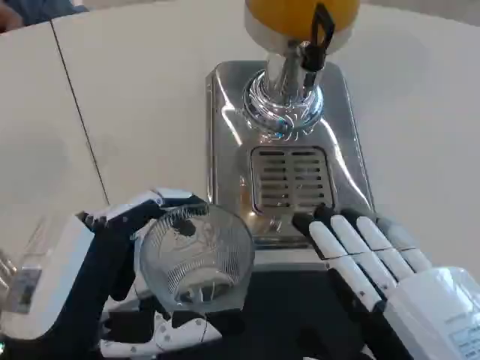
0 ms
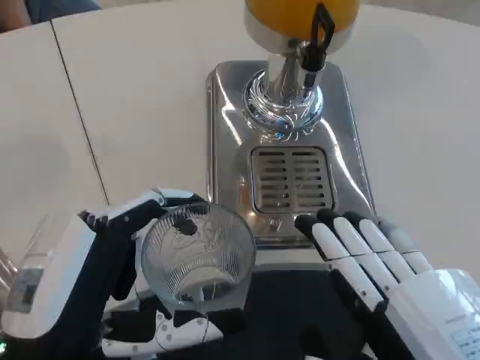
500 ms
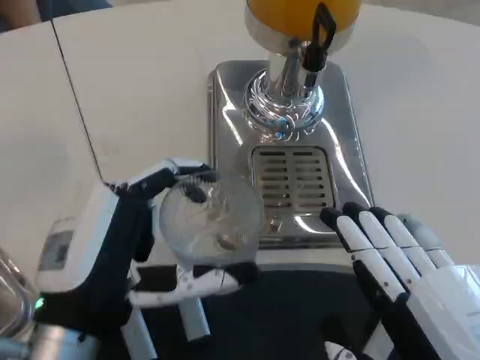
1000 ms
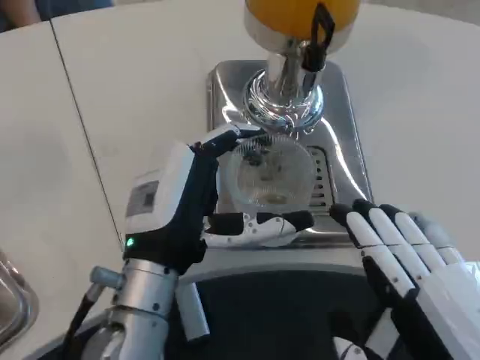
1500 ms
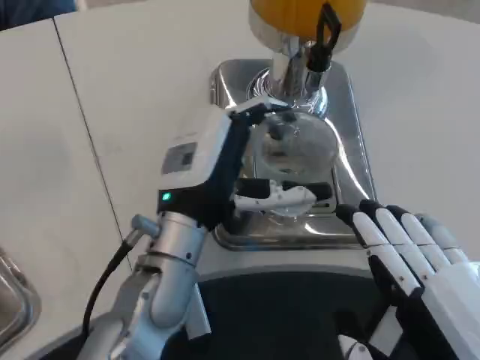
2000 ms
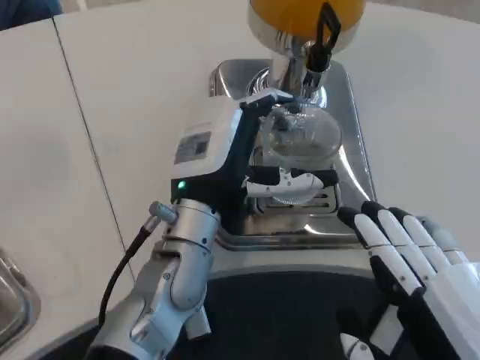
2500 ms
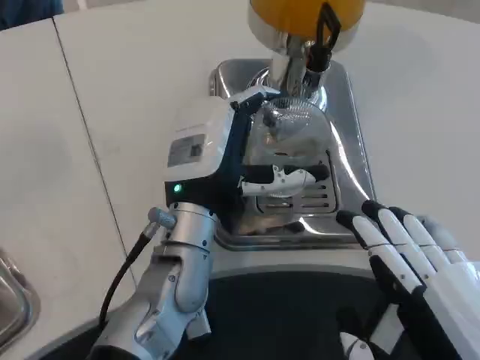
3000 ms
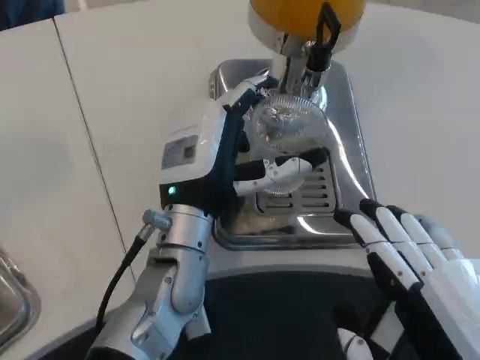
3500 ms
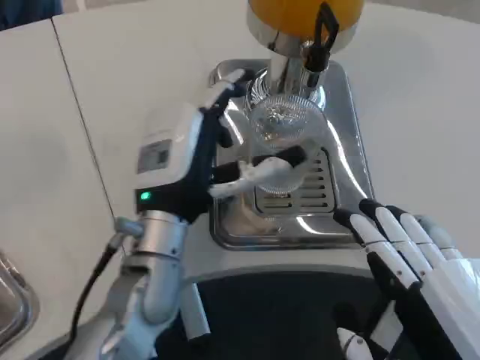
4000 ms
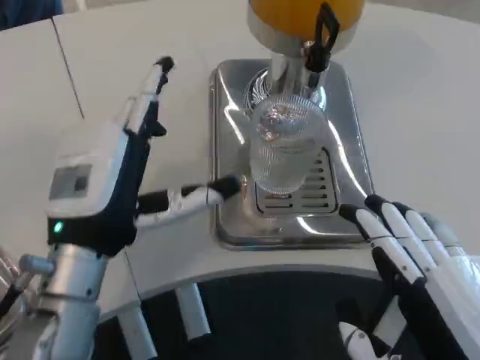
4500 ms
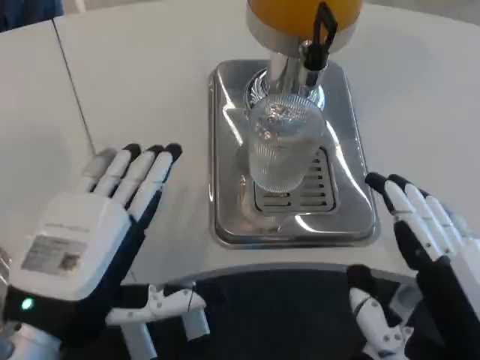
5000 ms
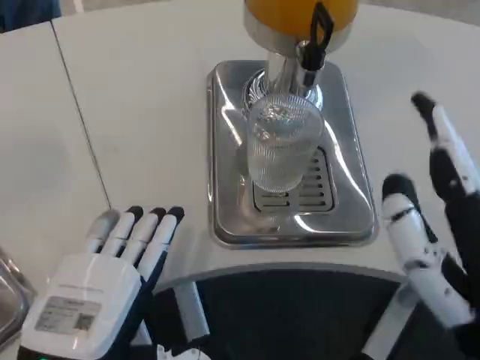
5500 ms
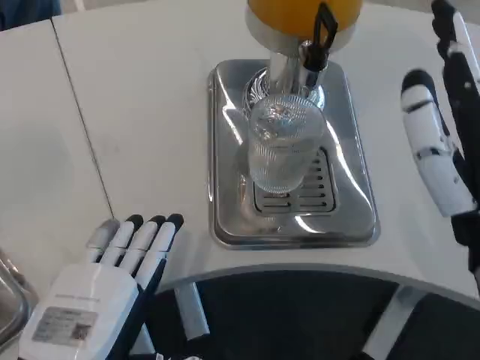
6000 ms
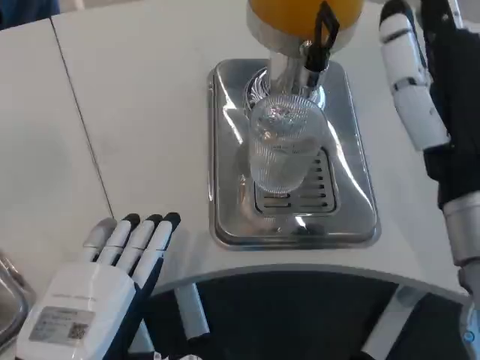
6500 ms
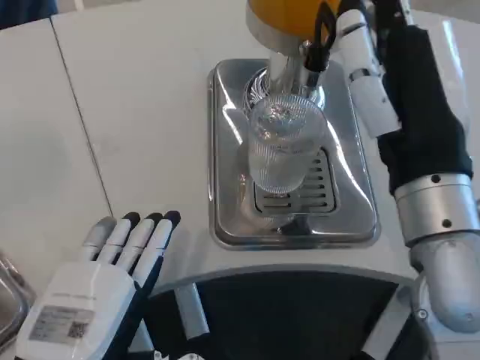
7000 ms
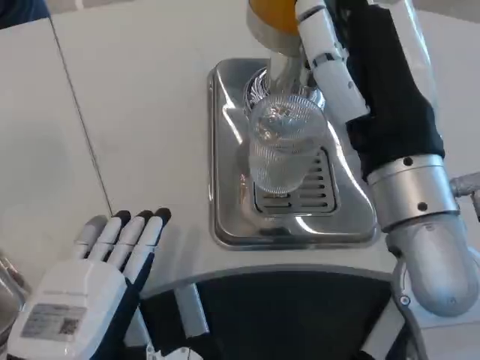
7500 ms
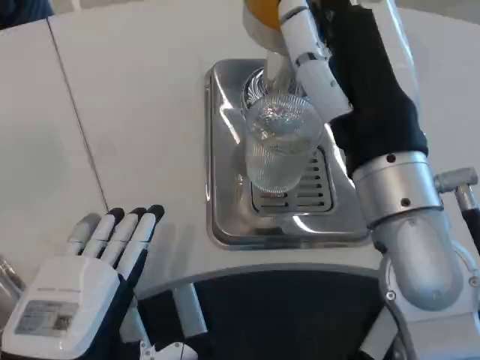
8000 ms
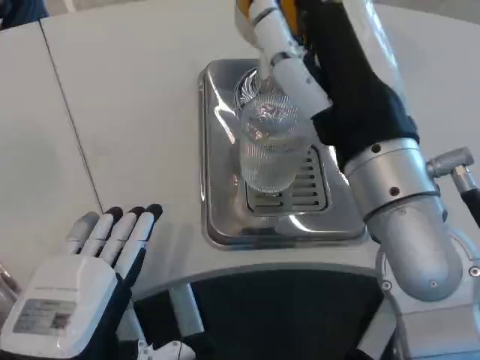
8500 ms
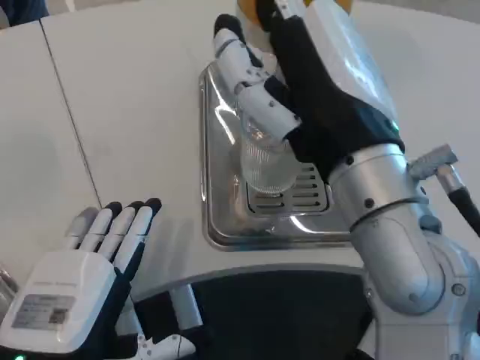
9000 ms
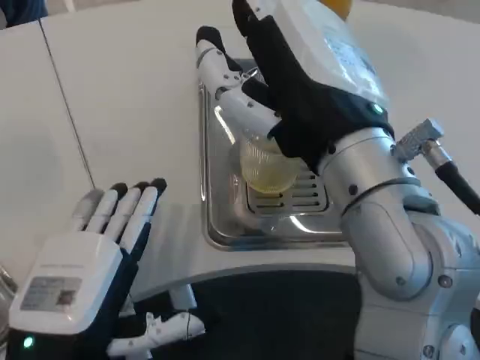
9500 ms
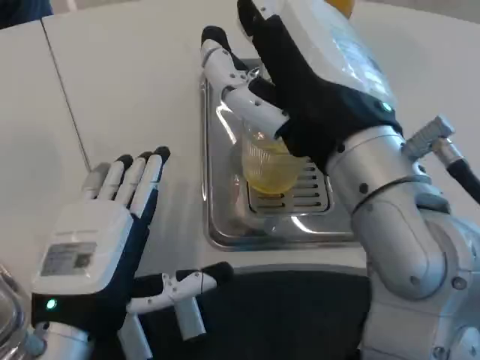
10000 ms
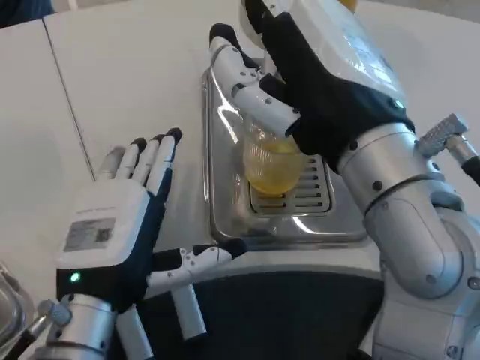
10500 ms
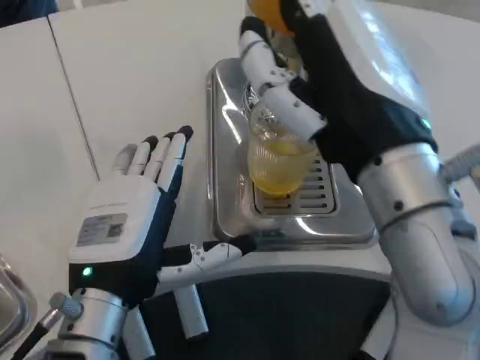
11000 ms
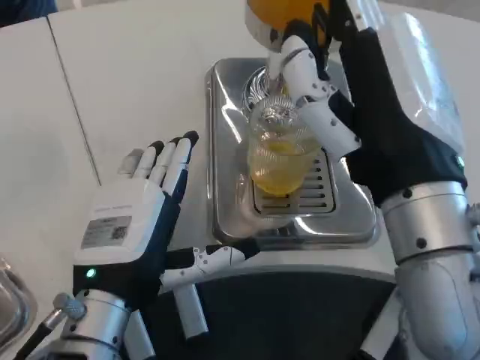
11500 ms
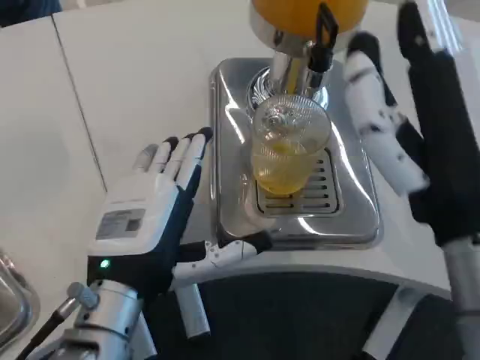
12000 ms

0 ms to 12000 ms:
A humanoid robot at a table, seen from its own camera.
Task of the whole recording: Grasp the cup under the faucet to collect the drink, then remove the cup.
0 ms to 2000 ms: The left hand moves forward and to the right, about 20 cm.
2000 ms to 4000 ms: The hands move only a little.
4000 ms to 6000 ms: The left hand moves backward and to the left, roughly 20 cm; the right hand moves forward, roughly 10 cm.
6000 ms to 8000 ms: The right hand shifts roughly 10 cm to the left and forward.
8000 ms to 10000 ms: The left hand changes place by about 5 cm.
10000 ms to 12000 ms: The right hand goes approximately 5 cm downward.

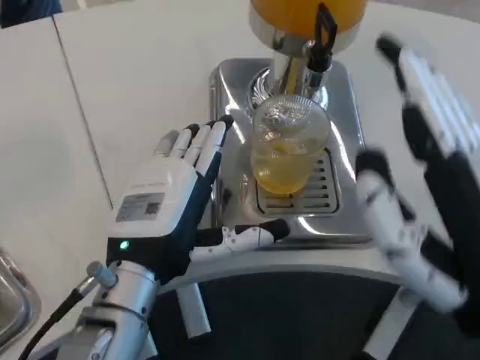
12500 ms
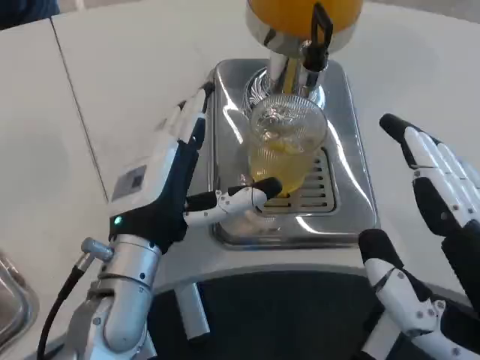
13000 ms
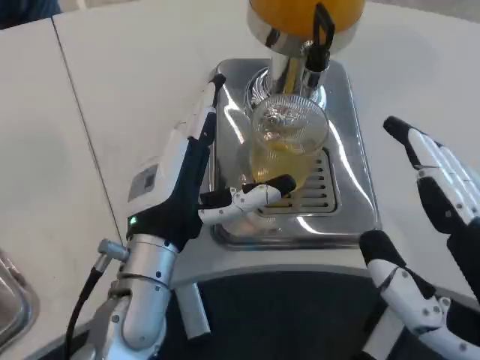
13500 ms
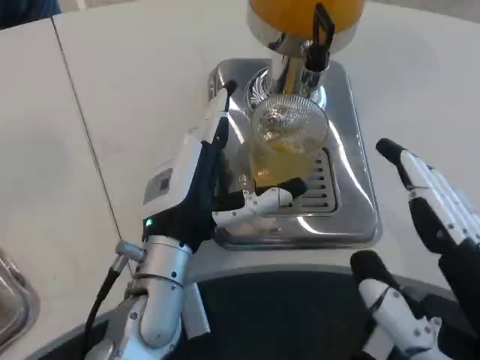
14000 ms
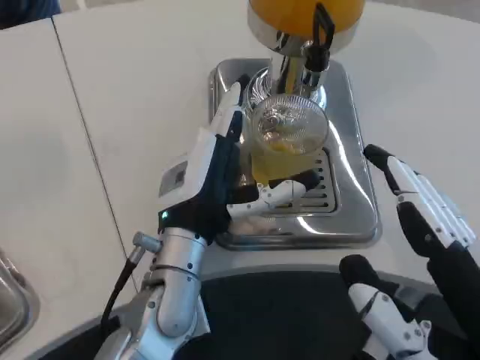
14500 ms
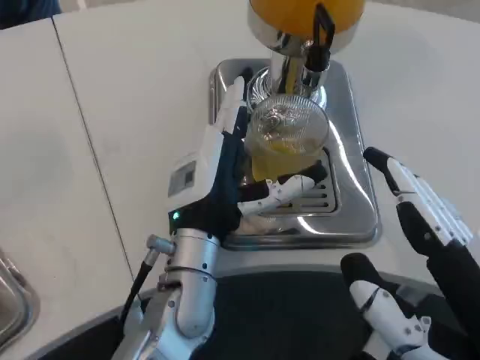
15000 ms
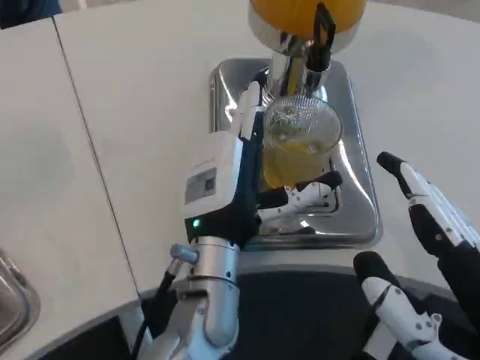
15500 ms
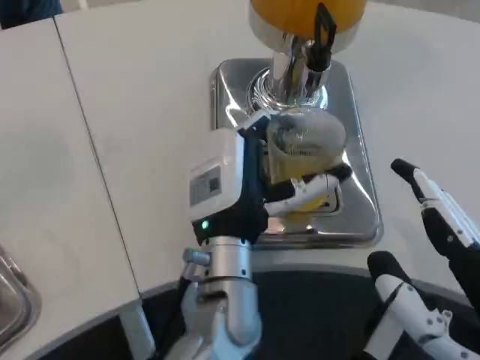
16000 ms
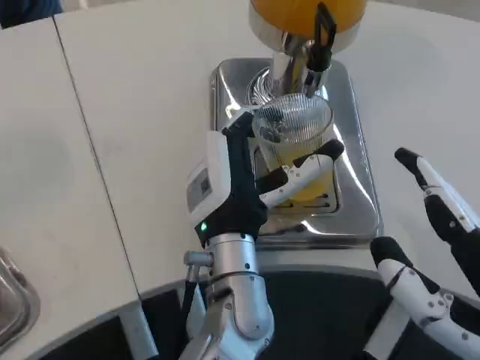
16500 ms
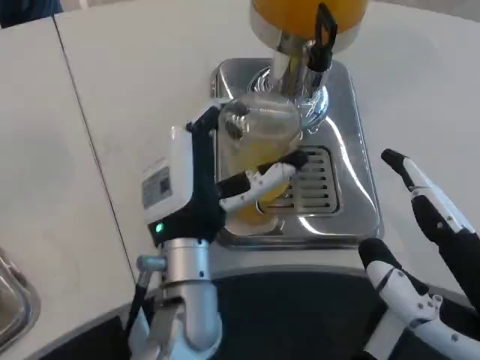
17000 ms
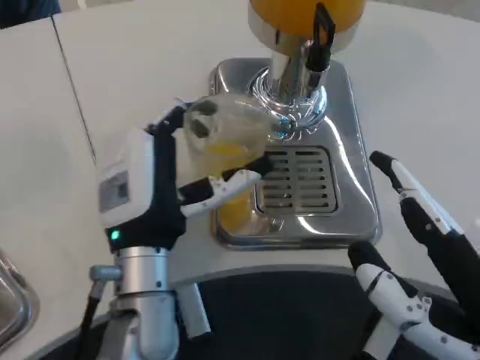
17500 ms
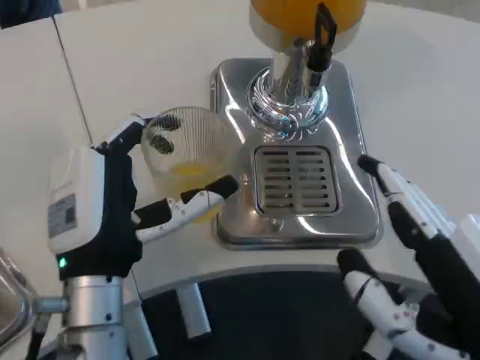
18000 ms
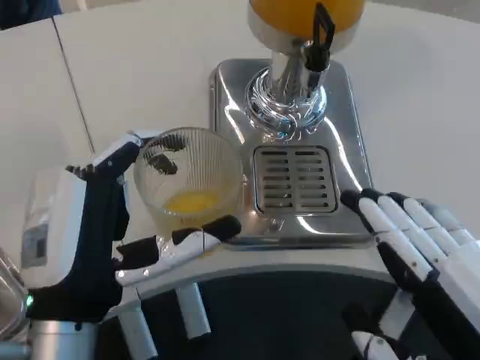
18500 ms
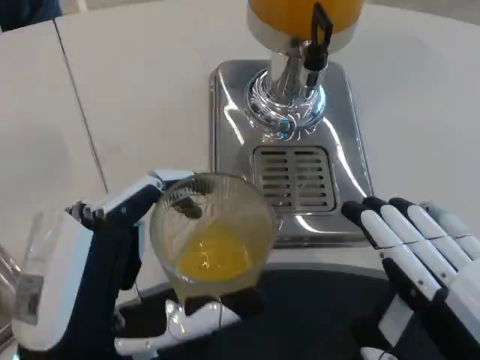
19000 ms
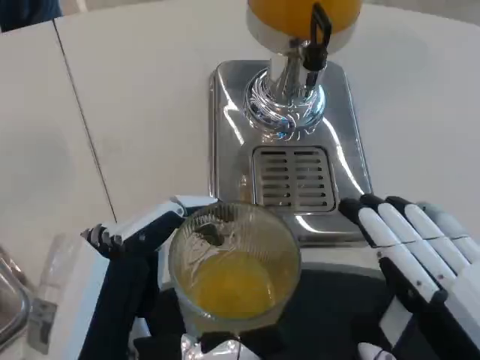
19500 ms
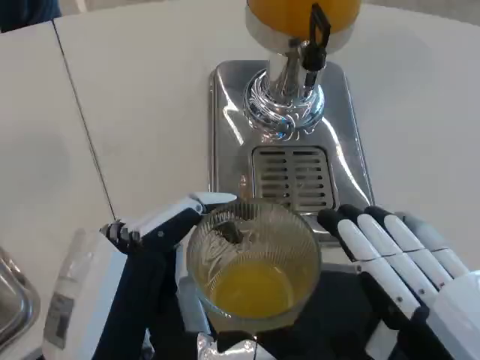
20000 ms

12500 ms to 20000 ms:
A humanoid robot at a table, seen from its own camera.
Task of the whole recording: Grasp the cup under the faucet to collect the drink, then remove the cup.
12500 ms to 14500 ms: The left hand changes place by approximately 5 cm.
14500 ms to 16500 ms: The left hand travels to the right by roughly 5 cm.
16500 ms to 18000 ms: The left hand travels to the left and backward by about 15 cm.
18000 ms to 20000 ms: The left hand heads backward, covering approximately 10 cm.

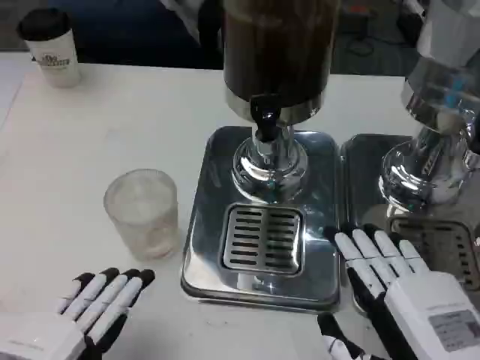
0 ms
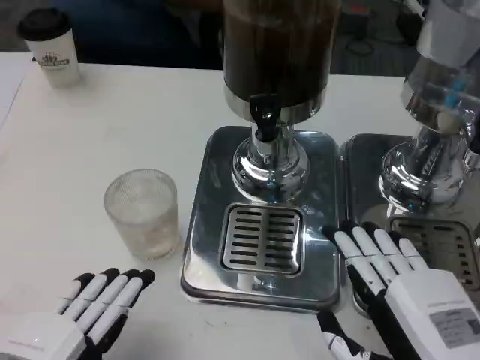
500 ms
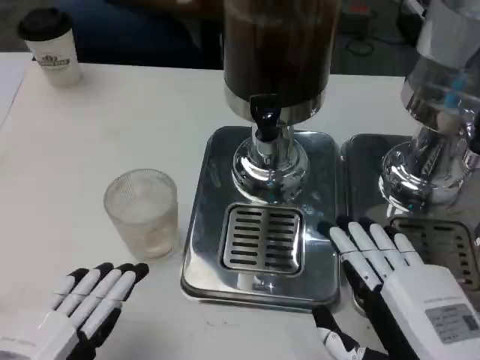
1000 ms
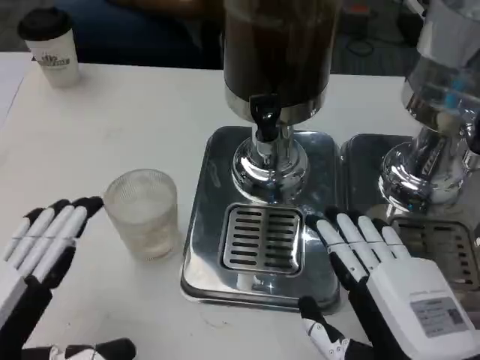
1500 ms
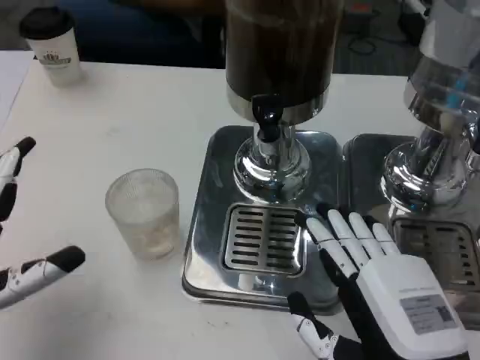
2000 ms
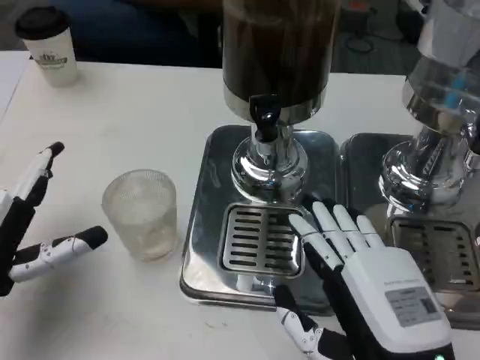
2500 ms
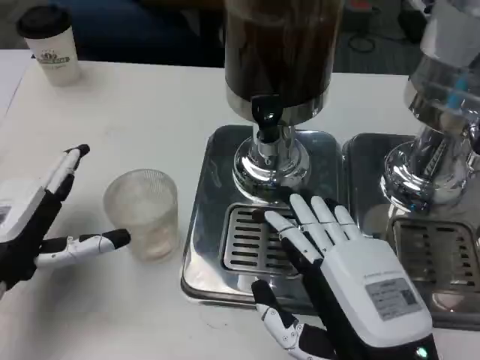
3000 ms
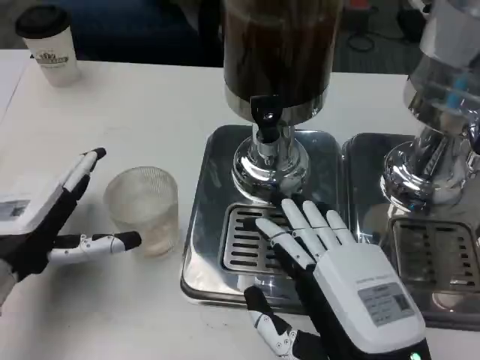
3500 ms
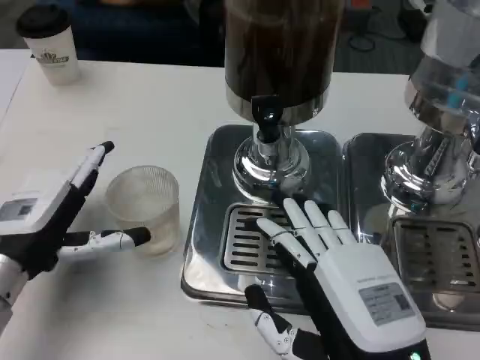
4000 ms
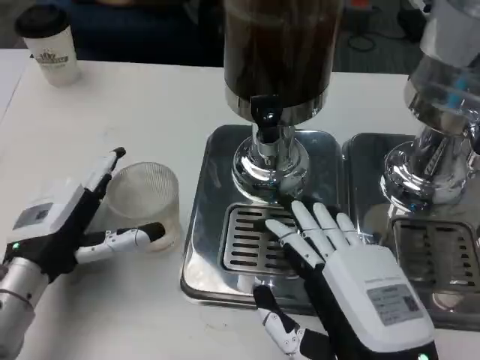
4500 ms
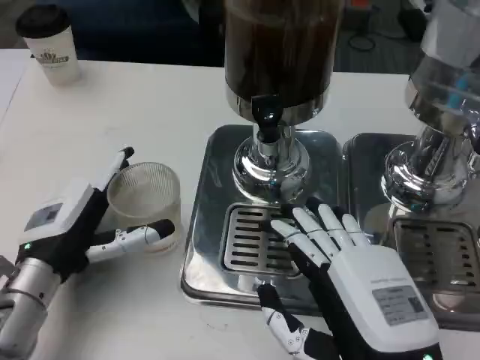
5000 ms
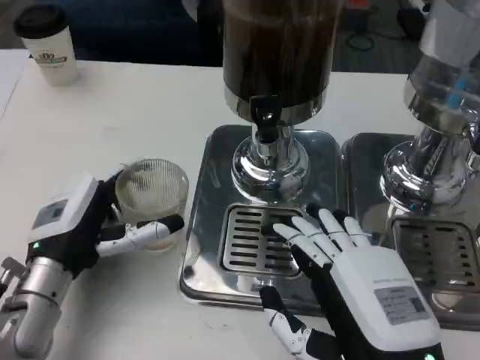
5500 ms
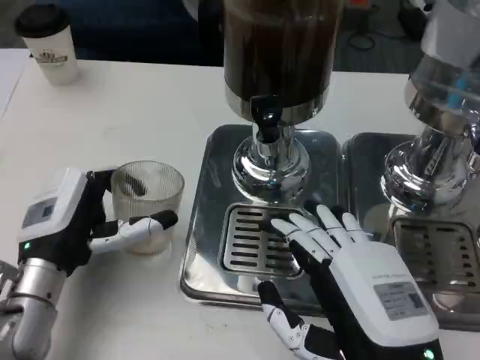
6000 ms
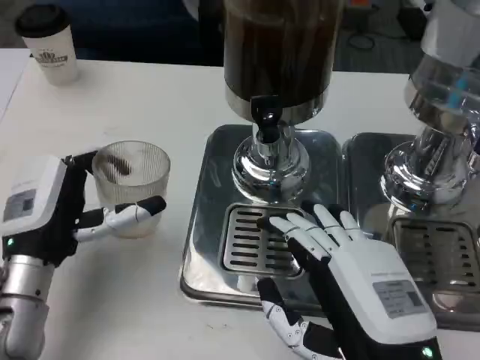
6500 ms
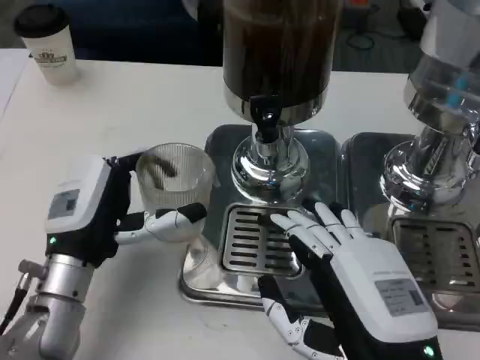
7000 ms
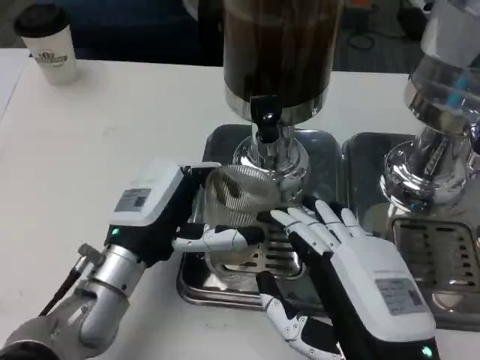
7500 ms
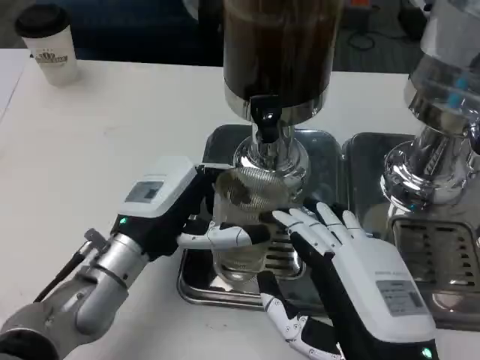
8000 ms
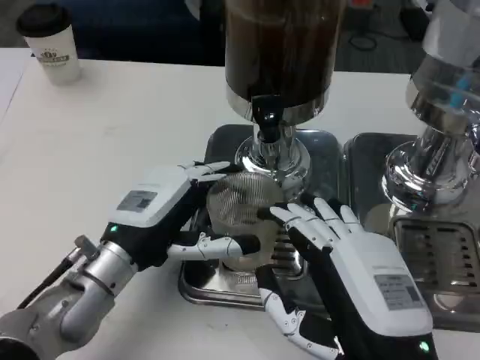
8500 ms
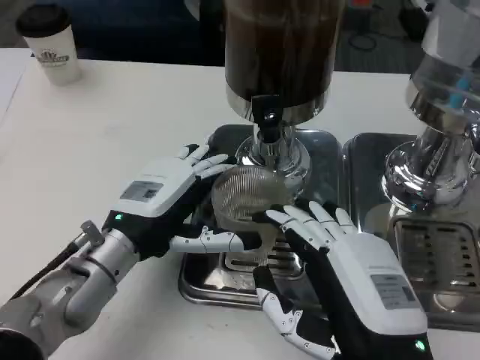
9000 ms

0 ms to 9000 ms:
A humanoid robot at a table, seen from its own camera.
Task of the whole recording: Grasp the cup under the faucet to collect the drink, then remove the cup.
0 ms to 2000 ms: The left hand is displaced forward by some 10 cm.
2000 ms to 4500 ms: The left hand travels forward by roughly 10 cm.
4500 ms to 7000 ms: The left hand is displaced to the right by roughly 5 cm.
